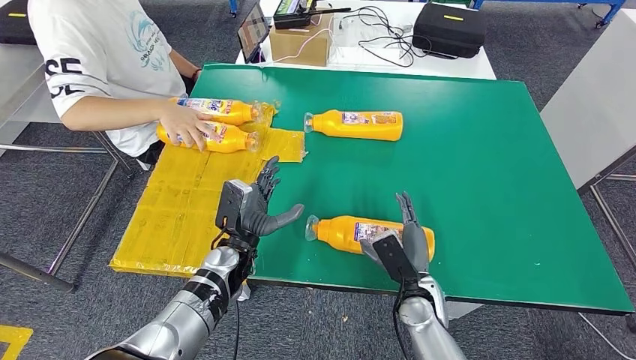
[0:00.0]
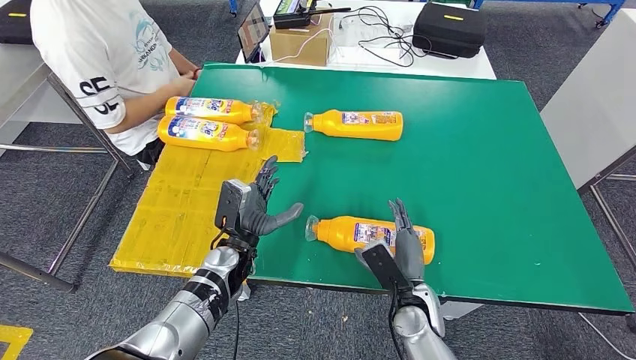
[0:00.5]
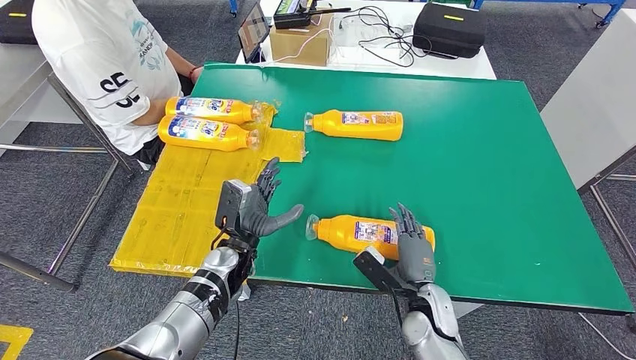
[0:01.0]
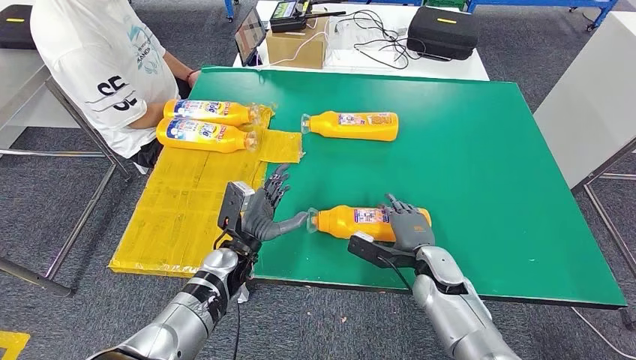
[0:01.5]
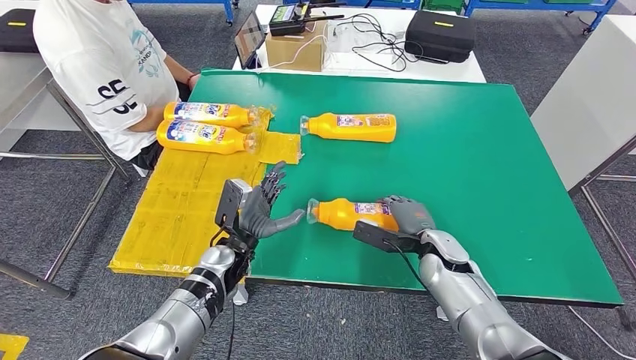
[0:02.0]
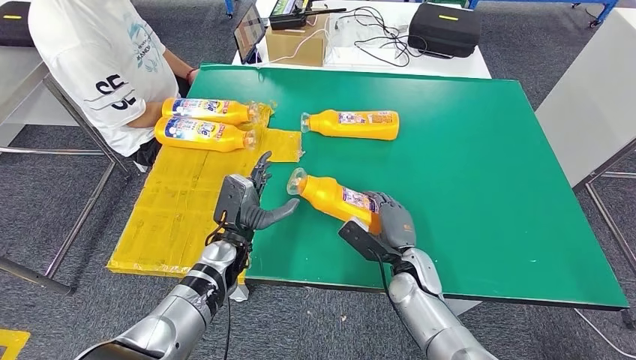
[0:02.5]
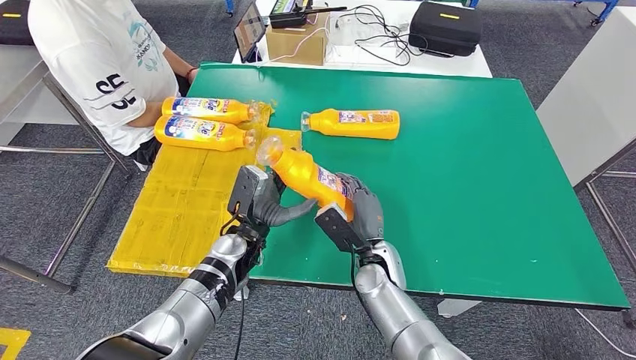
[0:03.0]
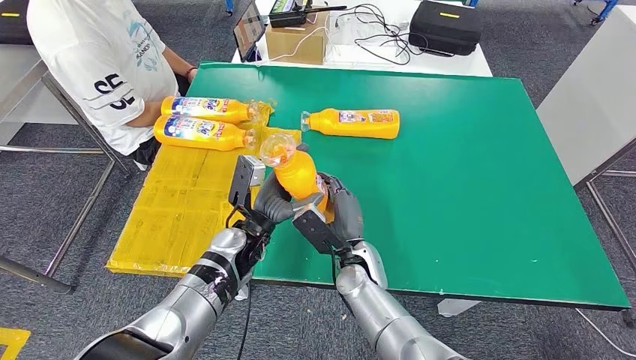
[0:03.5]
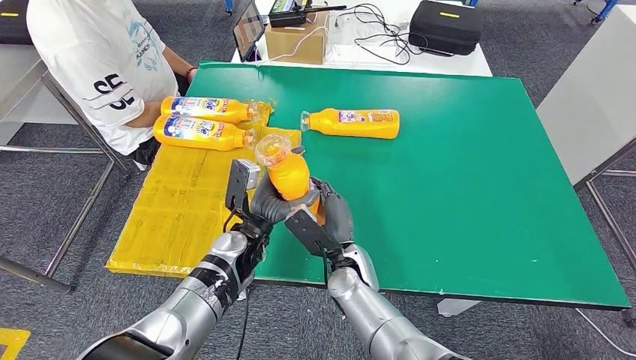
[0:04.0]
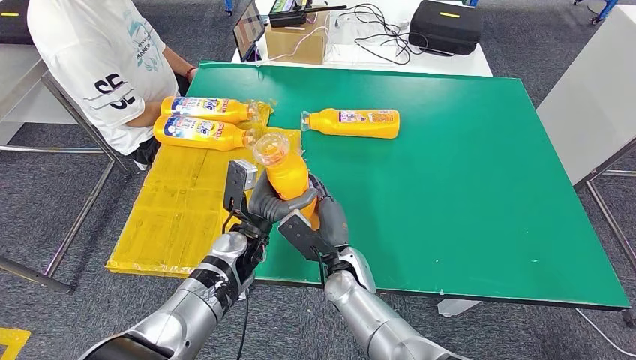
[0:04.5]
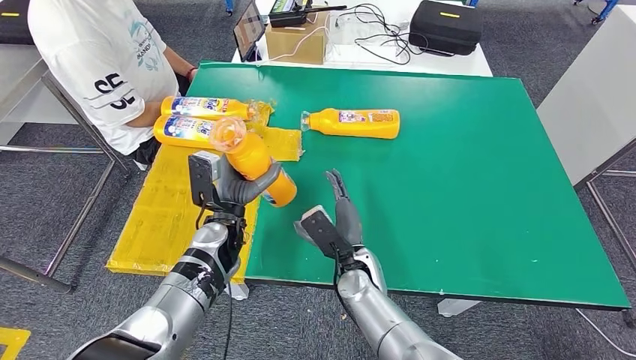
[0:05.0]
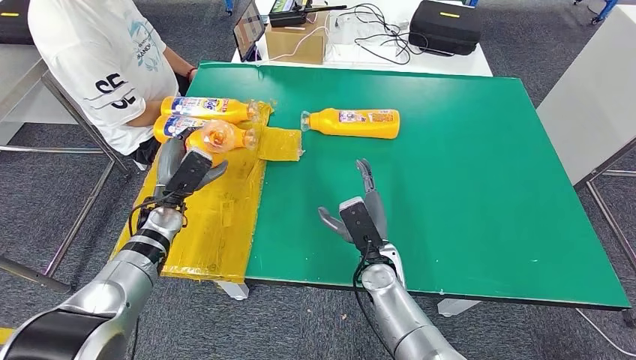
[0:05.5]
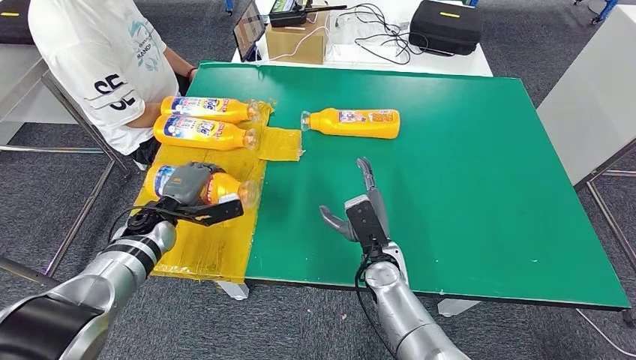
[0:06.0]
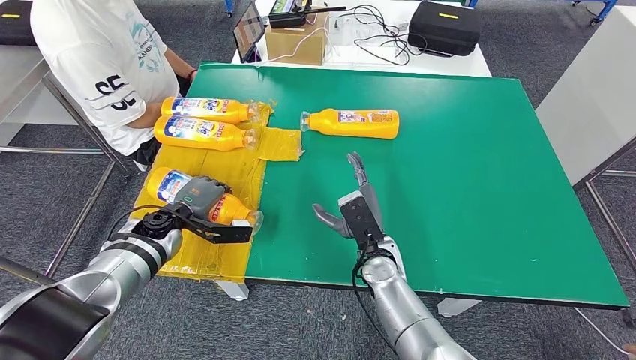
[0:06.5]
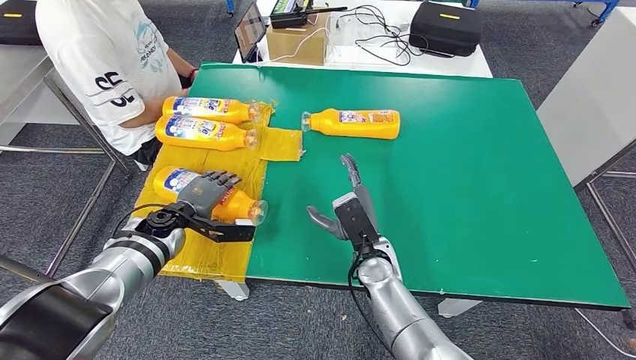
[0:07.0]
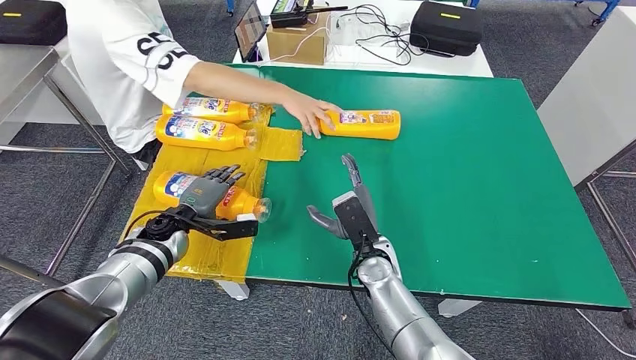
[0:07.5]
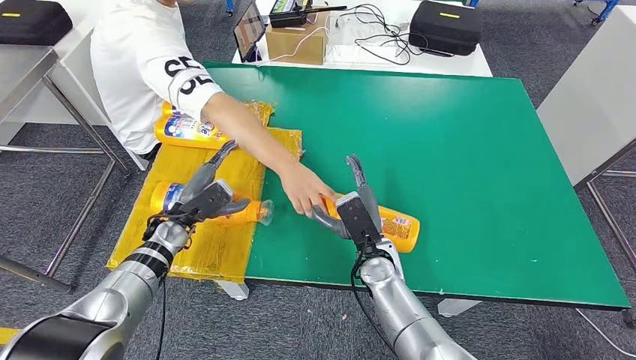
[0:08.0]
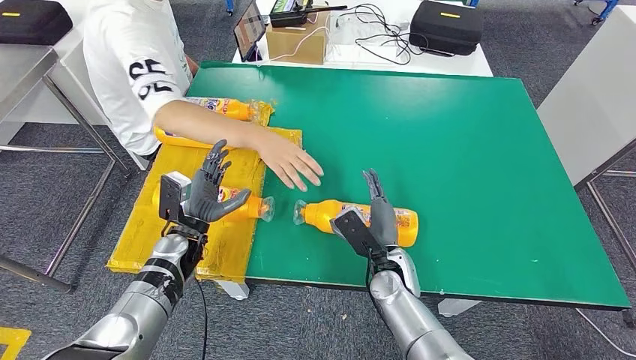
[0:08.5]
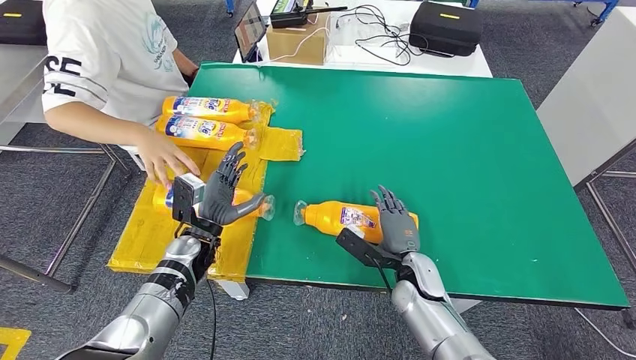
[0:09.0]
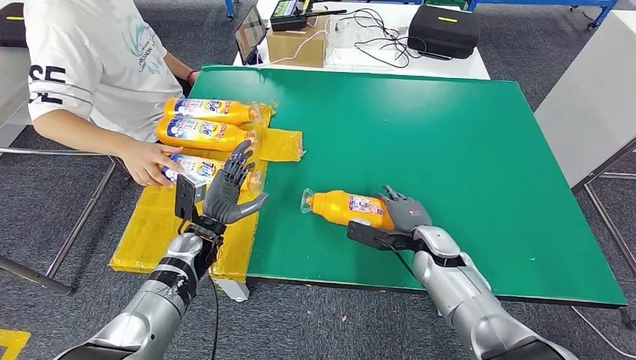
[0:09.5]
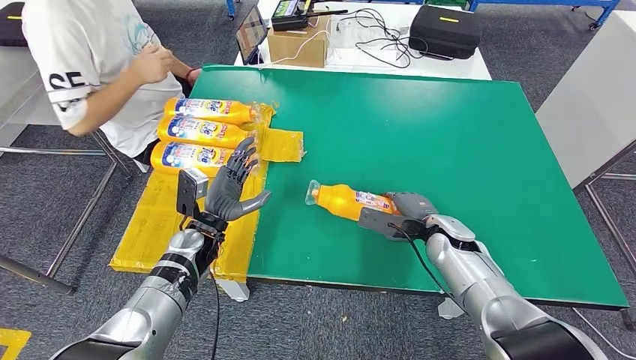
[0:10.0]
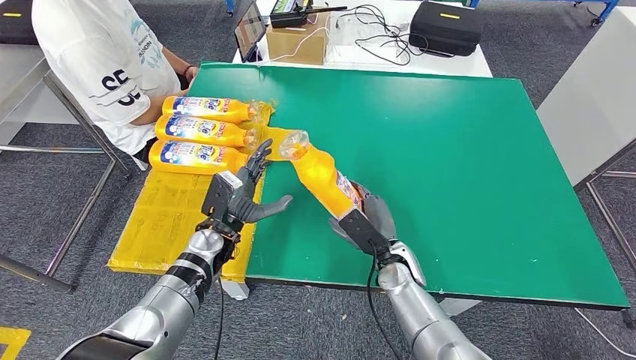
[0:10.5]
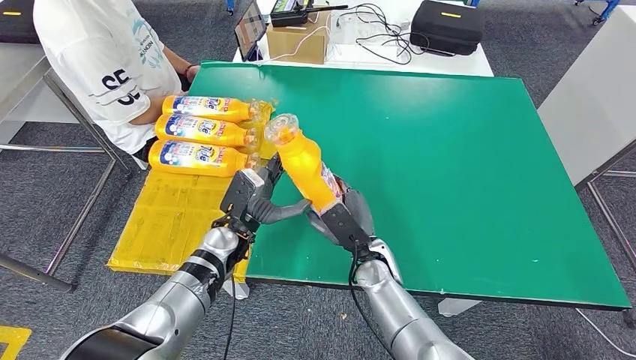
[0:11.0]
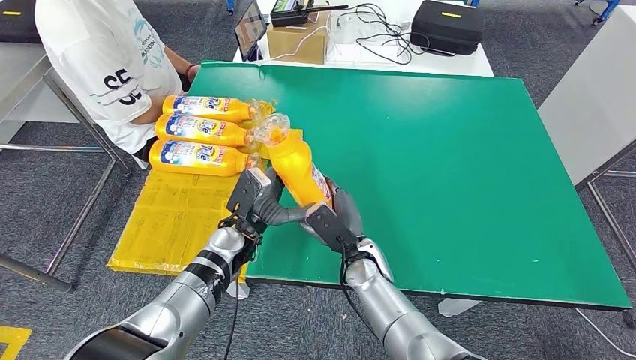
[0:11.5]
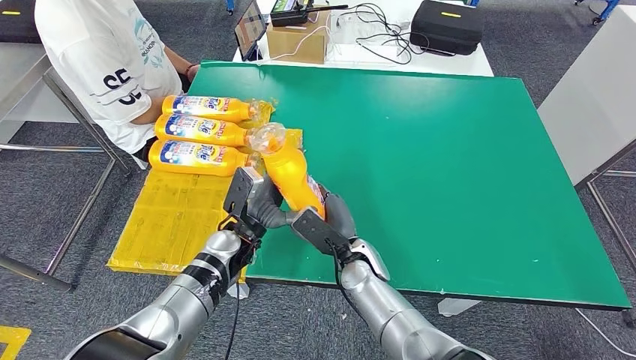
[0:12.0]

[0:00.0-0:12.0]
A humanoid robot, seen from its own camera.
Step, 0:00.0 to 0:03.0: Pick up the bottle from the table.
Step, 0:04.0 to 0:08.0: Flip the bottle to face forward.
Step, 0:09.5 to 0:10.5: Pick up the bottle from the table.
0:04.0 to 0:06.0: The right hand travels to the right by roughly 5 cm, while the left hand travels to the left by approximately 20 cm.

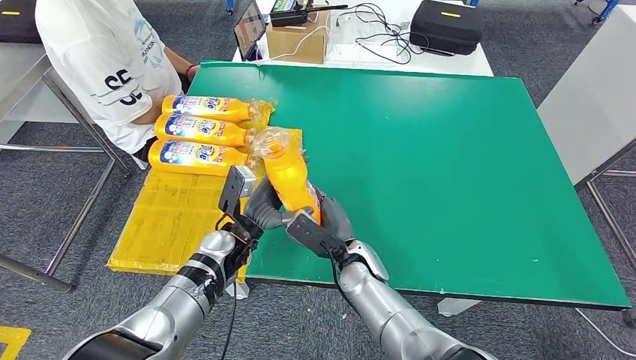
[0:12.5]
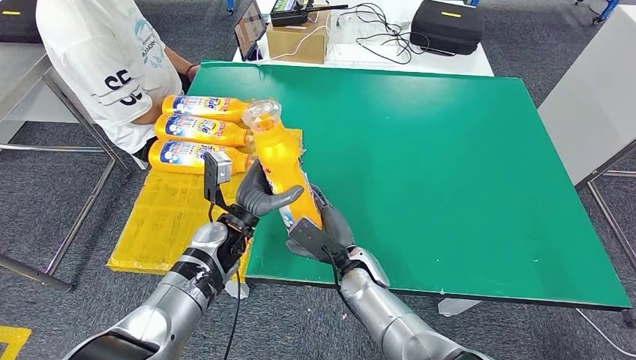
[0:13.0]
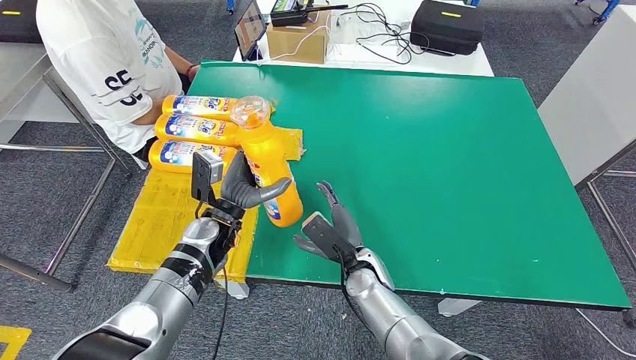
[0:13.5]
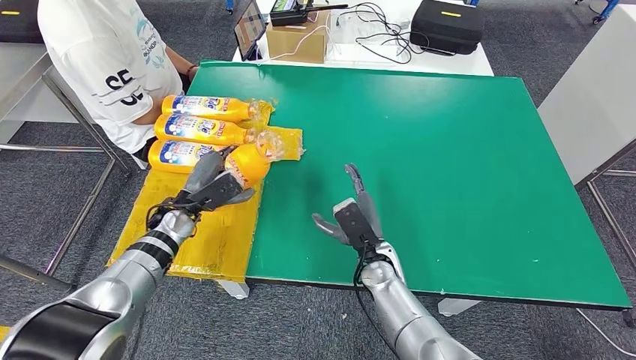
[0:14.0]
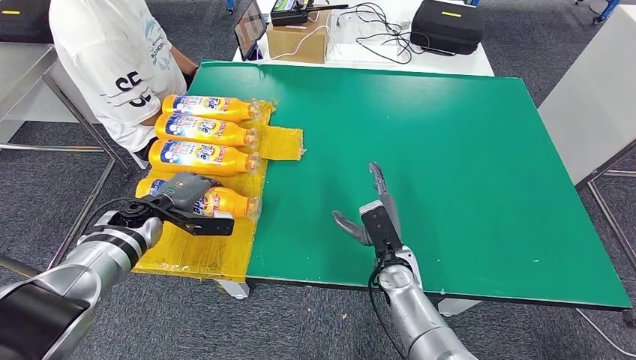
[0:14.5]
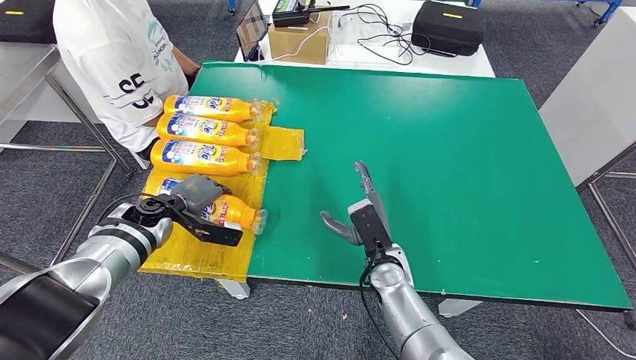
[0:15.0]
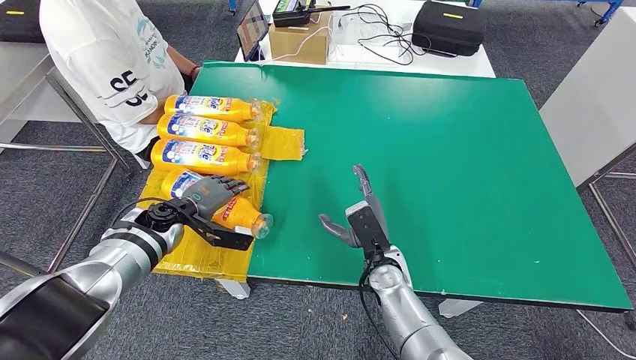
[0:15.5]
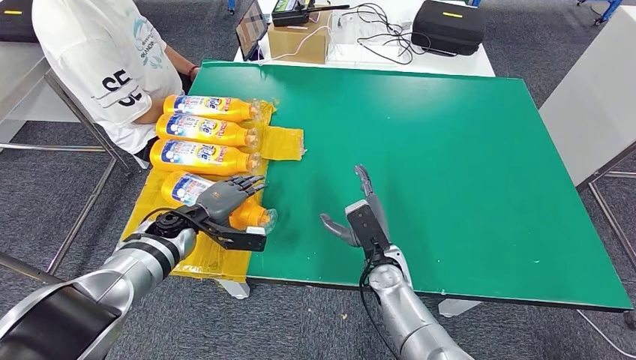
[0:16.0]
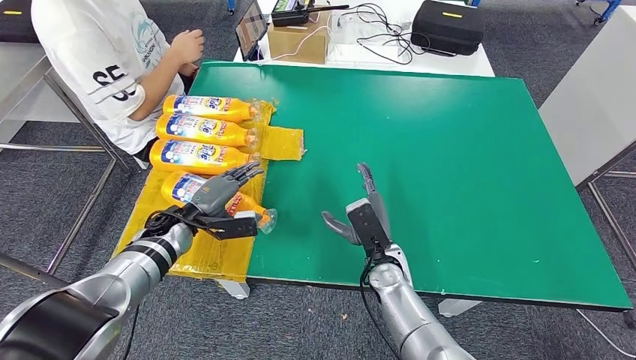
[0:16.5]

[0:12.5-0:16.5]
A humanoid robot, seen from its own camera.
Step, 0:12.5 to 0:16.5: Flip the bottle to face forward.
0:14.5 to 0:16.5: The left hand is displaced to the right by about 5 cm.

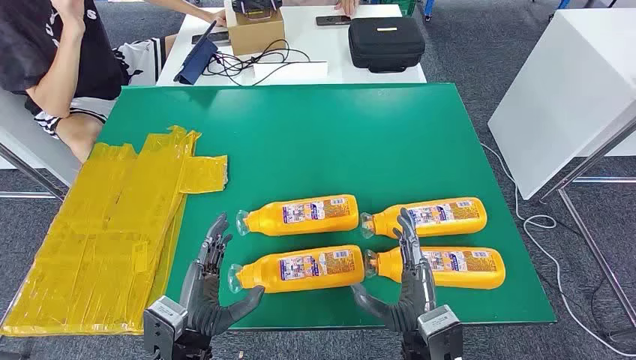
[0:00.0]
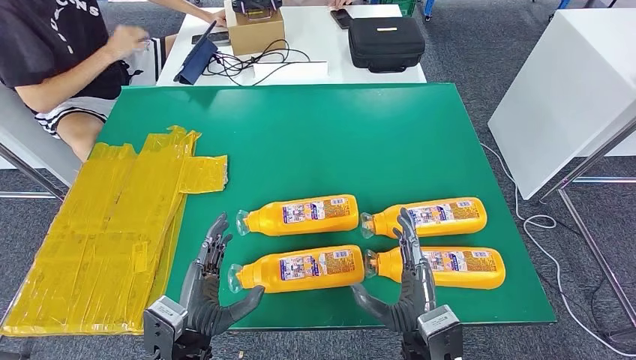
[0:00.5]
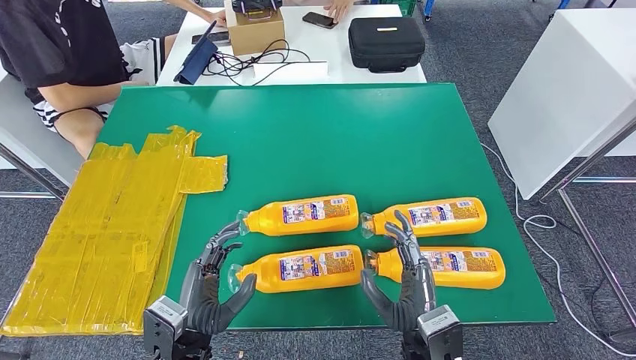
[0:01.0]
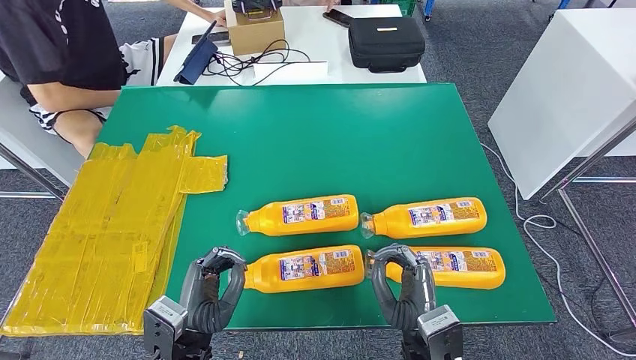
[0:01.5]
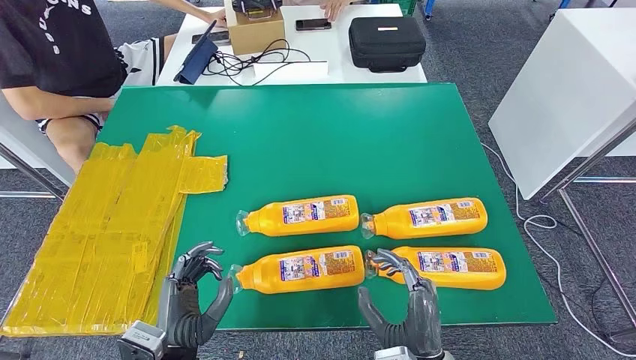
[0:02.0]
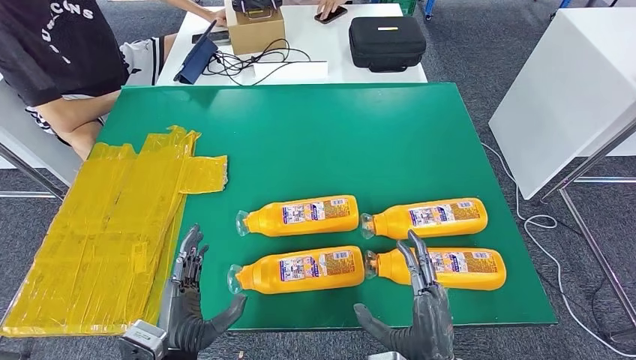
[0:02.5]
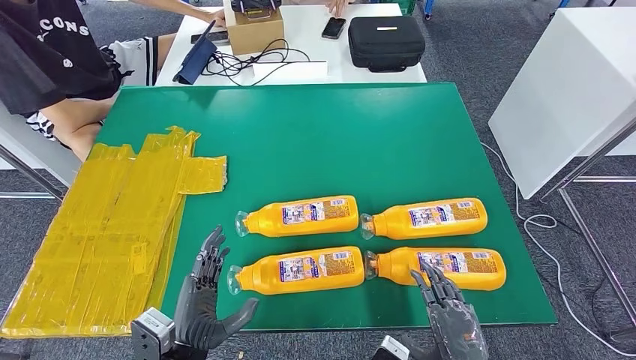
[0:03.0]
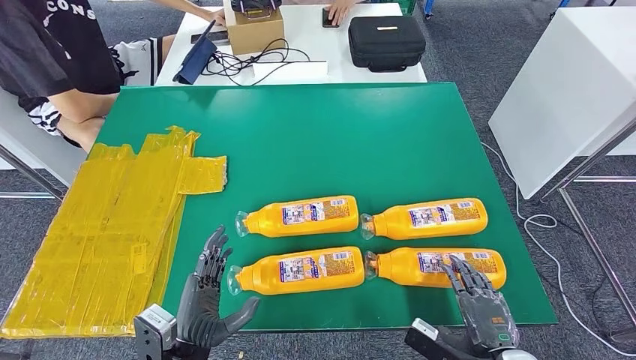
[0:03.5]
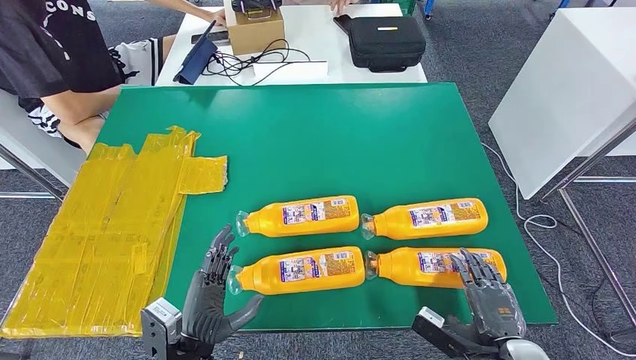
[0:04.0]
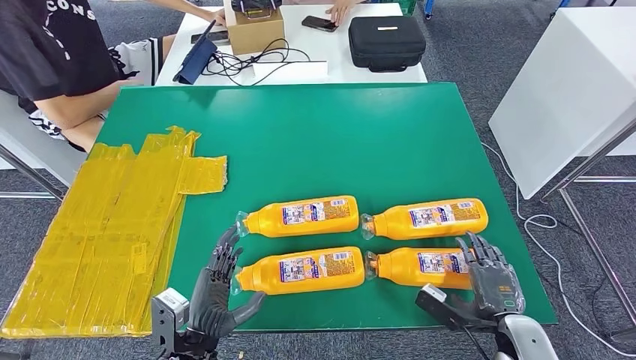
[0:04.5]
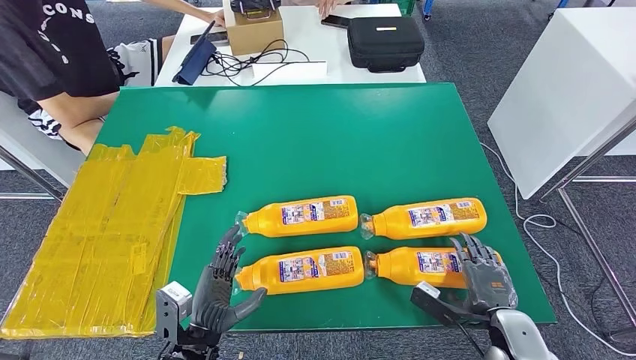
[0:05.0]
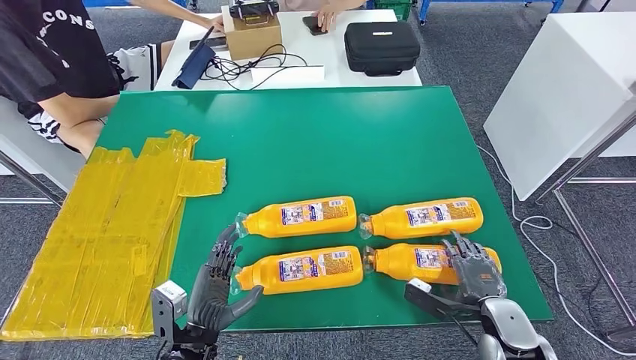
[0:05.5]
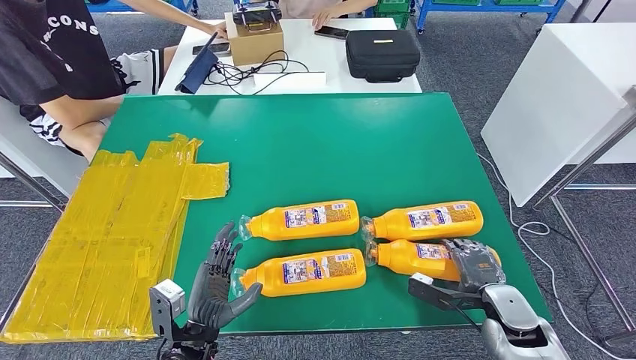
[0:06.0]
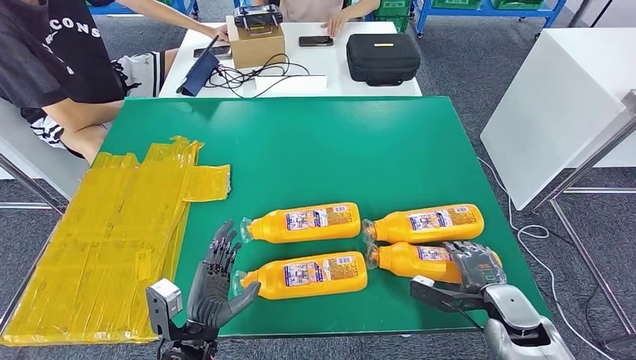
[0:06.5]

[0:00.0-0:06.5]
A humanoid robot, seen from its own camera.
0:02.0 to 0:04.5: The right hand travels to the right by about 15 cm.
